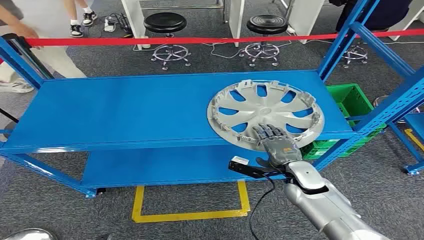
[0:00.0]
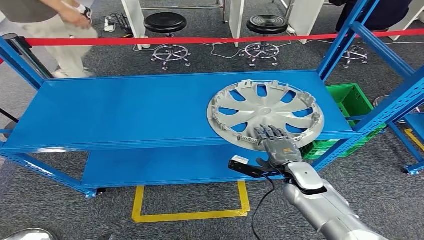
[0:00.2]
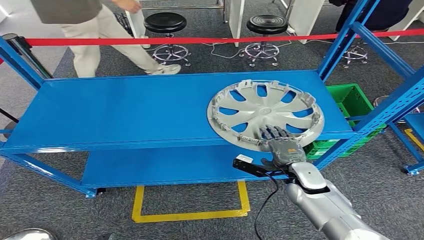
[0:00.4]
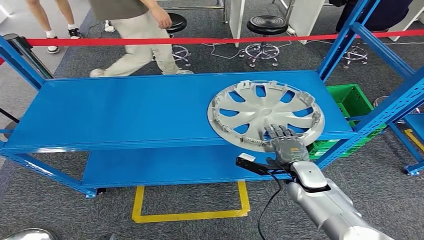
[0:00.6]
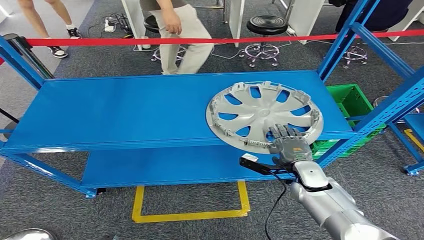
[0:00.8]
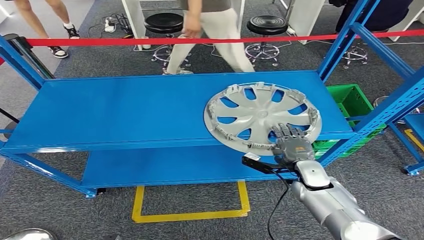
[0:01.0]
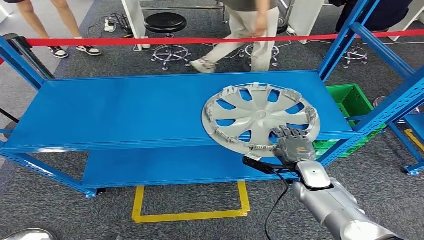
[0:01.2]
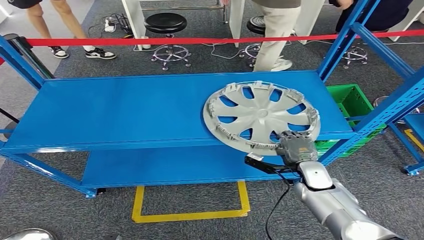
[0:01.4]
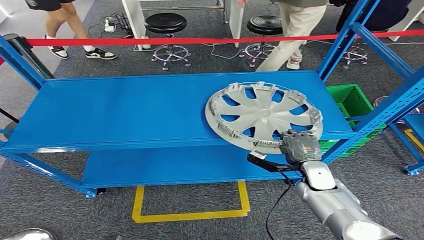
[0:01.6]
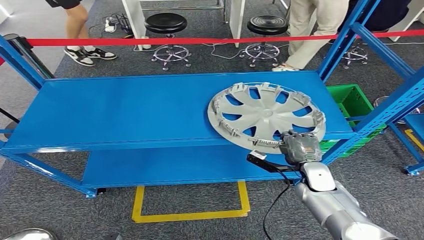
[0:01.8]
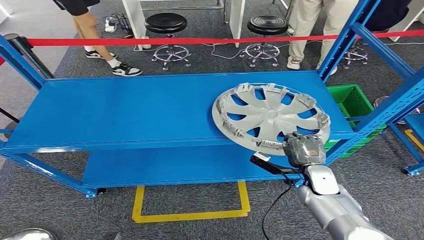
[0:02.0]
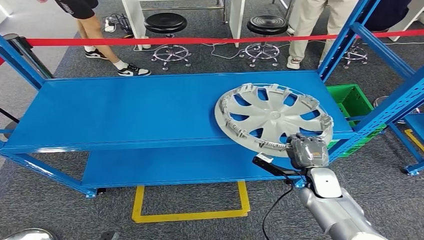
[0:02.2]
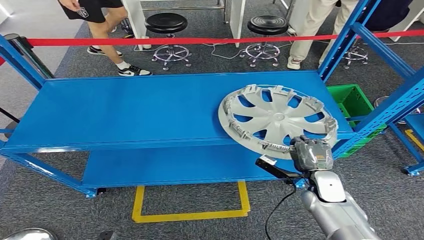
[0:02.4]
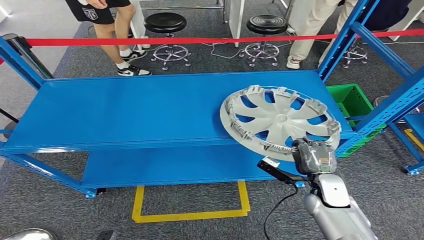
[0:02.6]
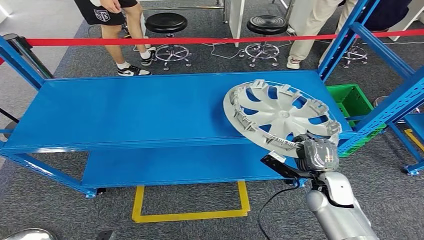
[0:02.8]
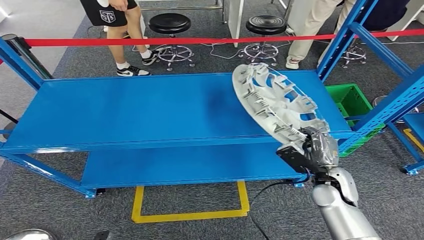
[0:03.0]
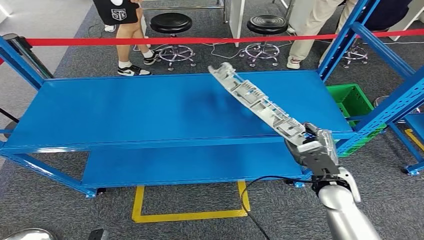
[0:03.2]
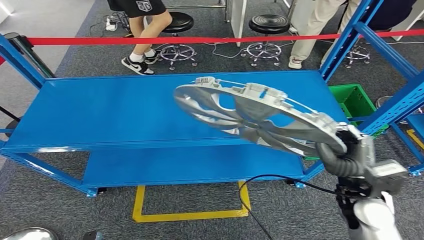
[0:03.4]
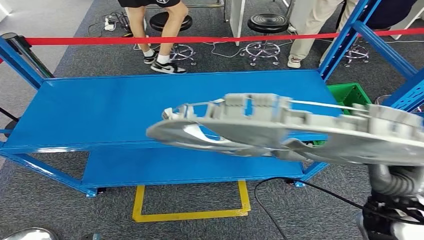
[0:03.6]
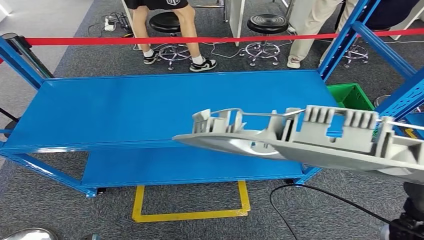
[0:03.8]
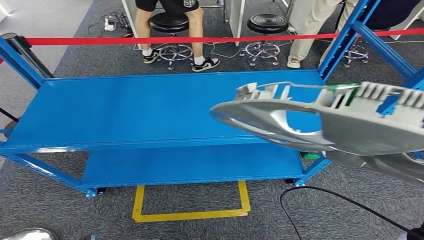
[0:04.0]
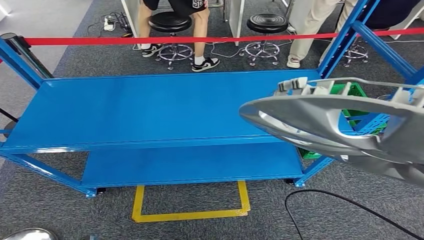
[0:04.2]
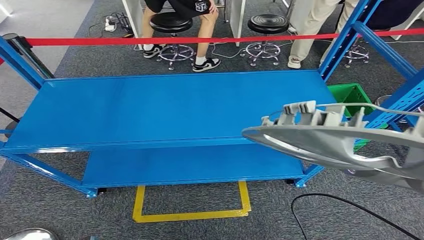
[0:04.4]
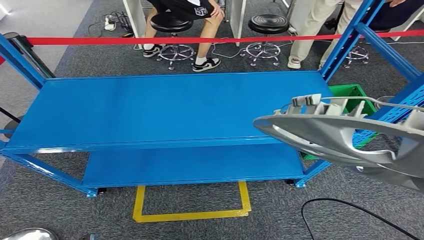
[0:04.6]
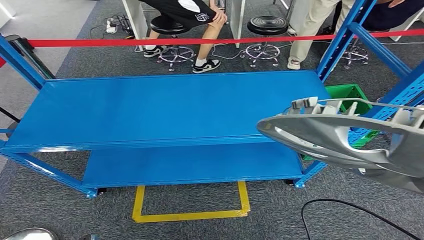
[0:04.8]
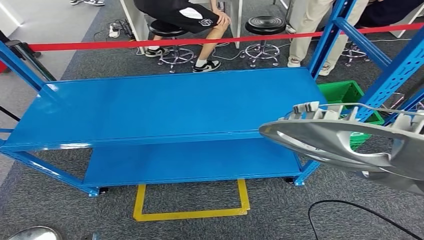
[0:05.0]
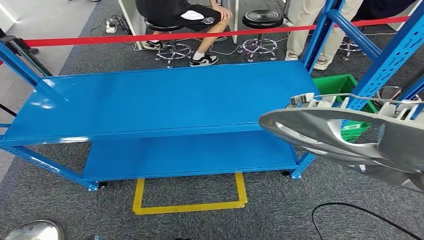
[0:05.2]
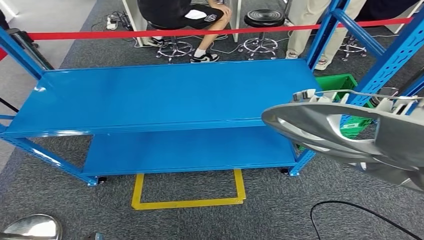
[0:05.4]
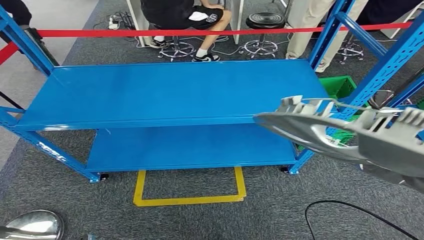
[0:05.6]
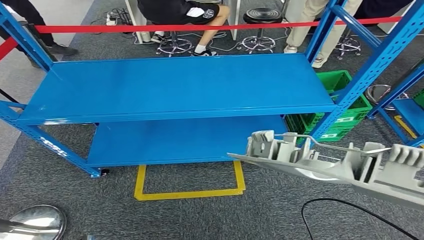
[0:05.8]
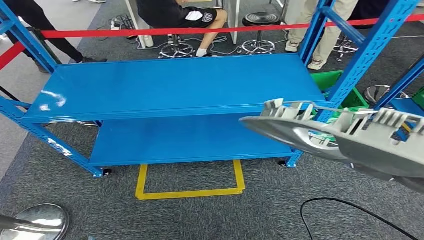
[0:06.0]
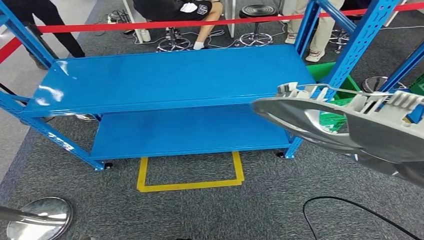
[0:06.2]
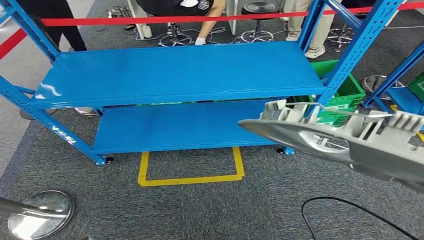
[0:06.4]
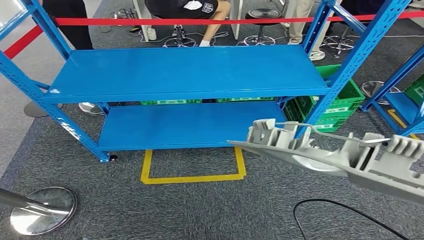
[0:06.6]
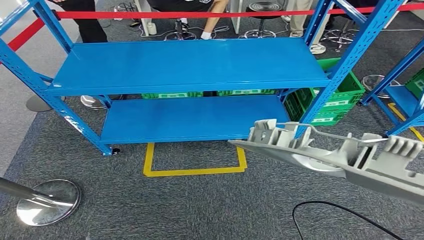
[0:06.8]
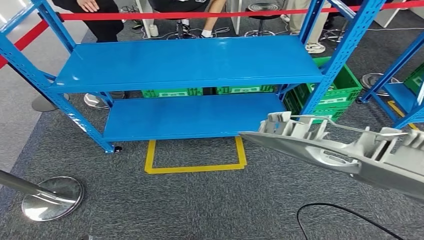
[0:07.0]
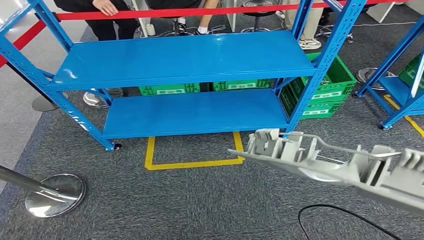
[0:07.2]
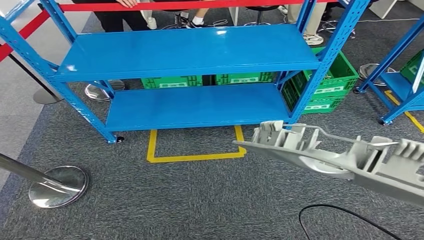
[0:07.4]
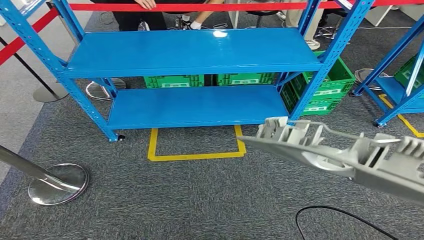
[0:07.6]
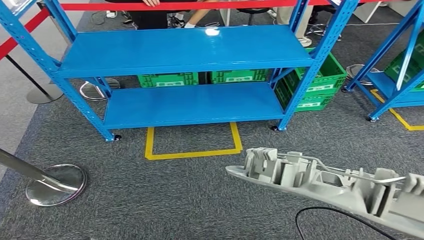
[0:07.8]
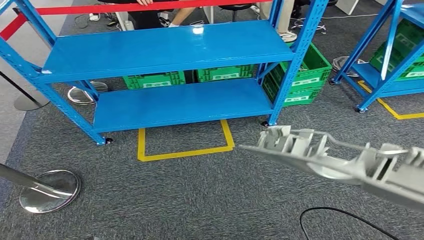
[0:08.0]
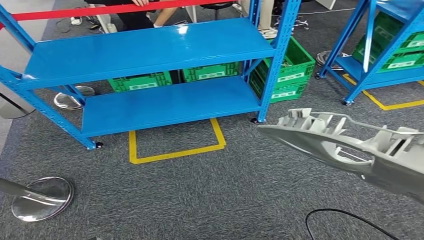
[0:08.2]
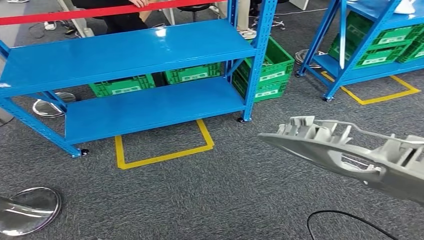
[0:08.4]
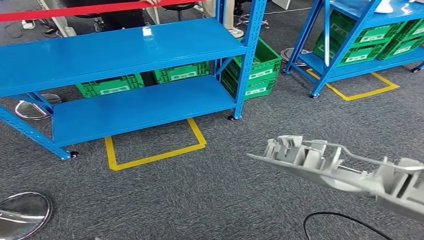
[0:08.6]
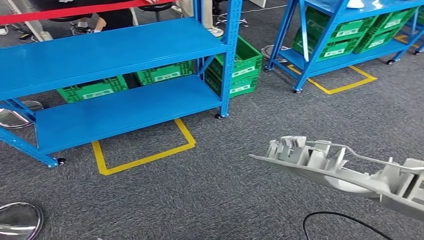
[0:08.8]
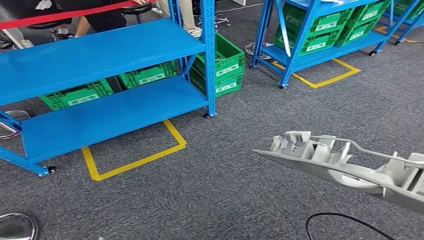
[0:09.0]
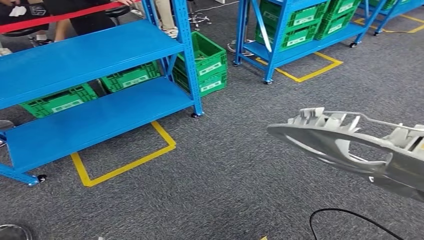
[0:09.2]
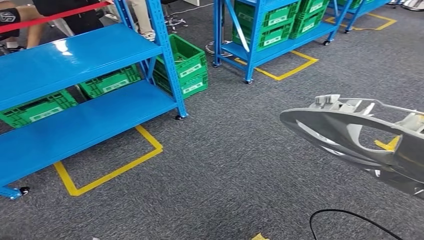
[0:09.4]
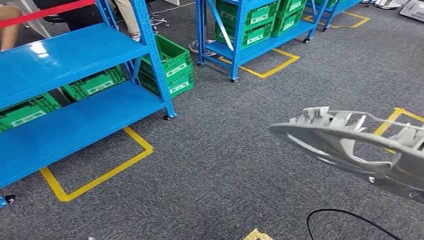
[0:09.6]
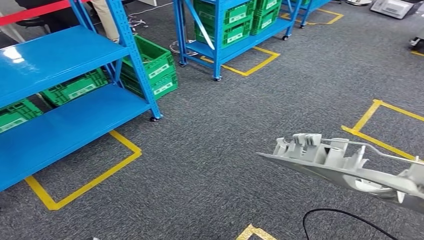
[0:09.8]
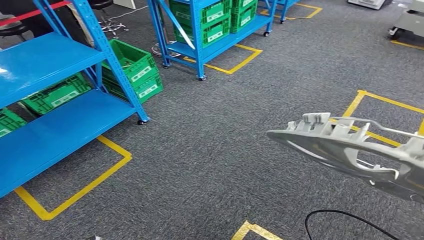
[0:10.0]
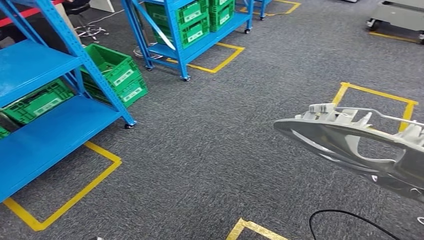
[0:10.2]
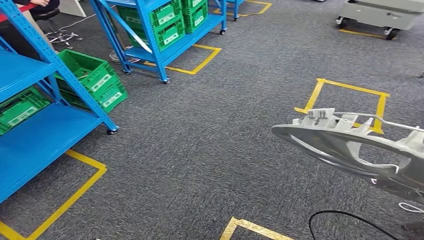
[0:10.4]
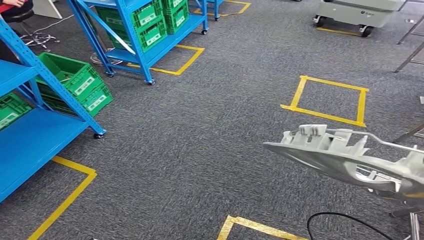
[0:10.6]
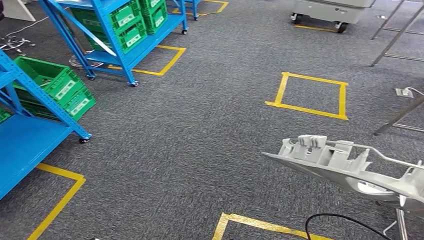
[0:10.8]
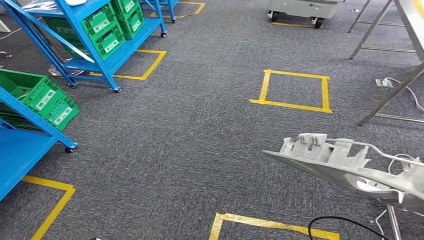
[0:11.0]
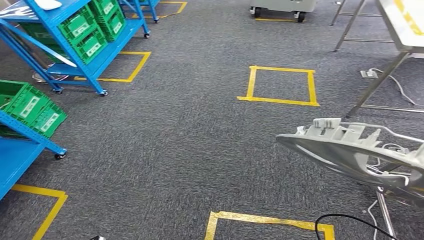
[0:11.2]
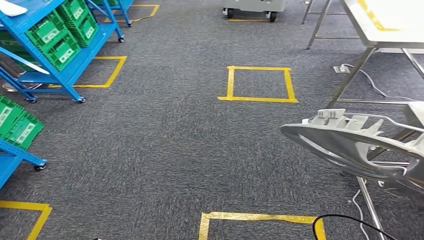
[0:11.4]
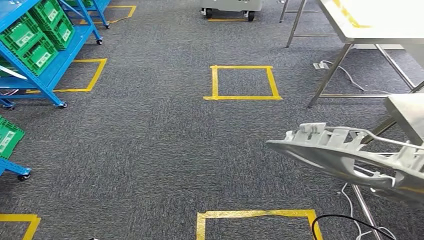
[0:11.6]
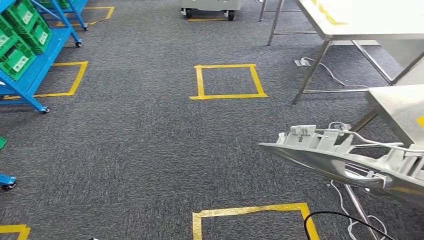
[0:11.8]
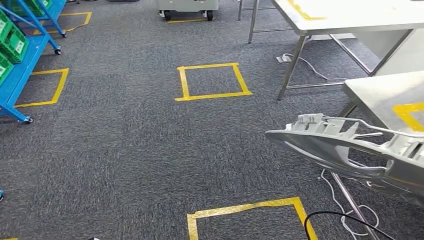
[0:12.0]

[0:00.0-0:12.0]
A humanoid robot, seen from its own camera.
Step, 0:00.0 to 0:04.6: Pick up the small component from the shelf.

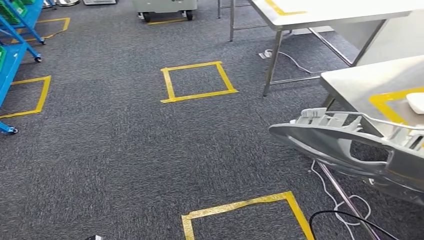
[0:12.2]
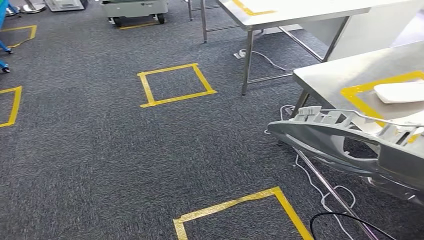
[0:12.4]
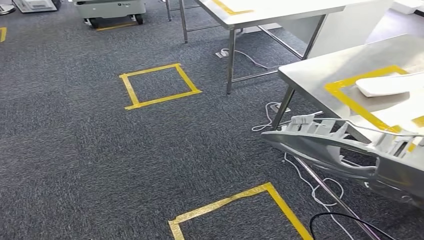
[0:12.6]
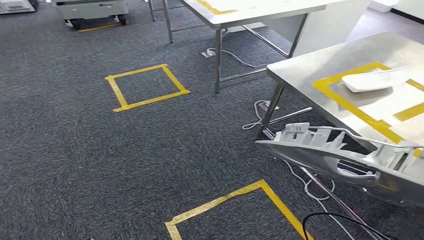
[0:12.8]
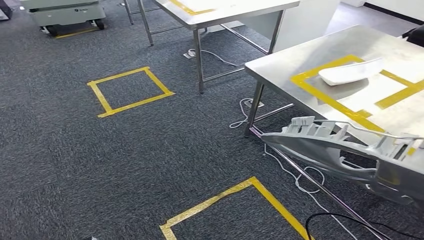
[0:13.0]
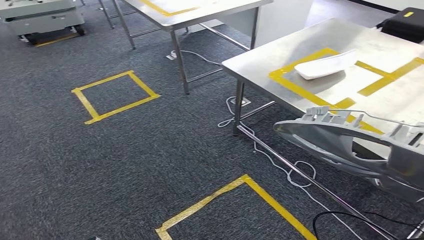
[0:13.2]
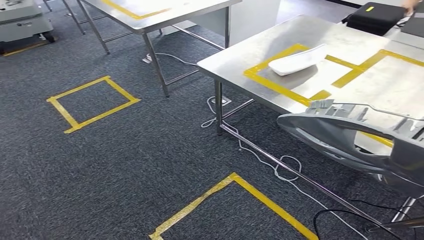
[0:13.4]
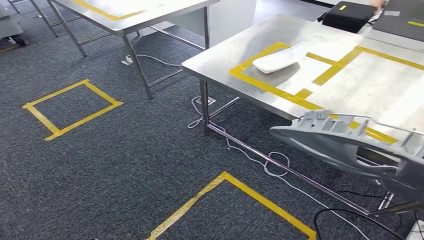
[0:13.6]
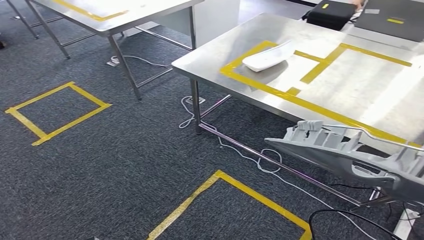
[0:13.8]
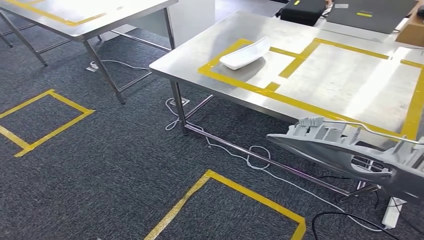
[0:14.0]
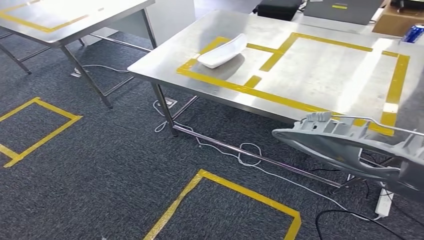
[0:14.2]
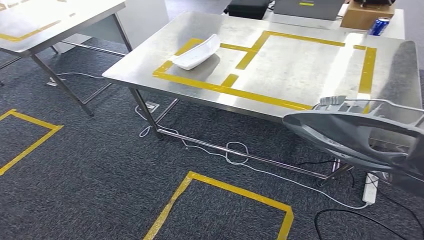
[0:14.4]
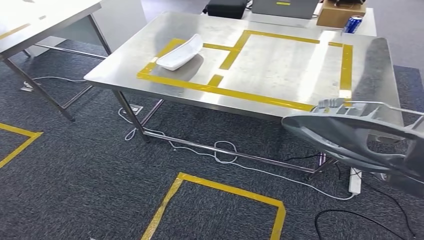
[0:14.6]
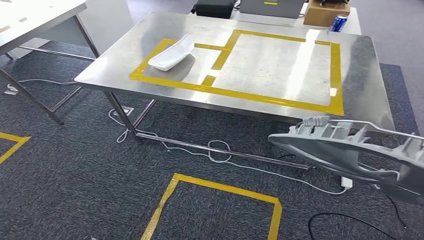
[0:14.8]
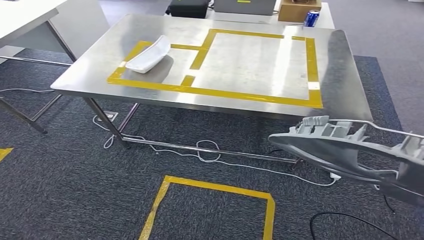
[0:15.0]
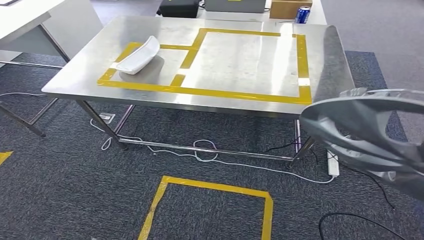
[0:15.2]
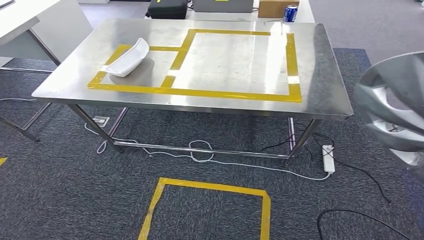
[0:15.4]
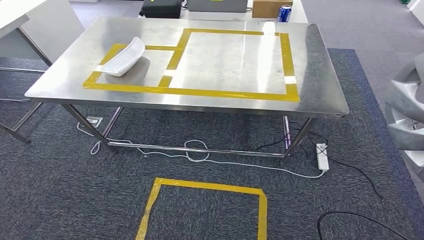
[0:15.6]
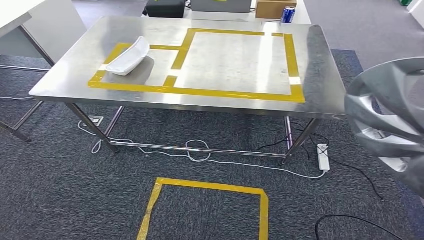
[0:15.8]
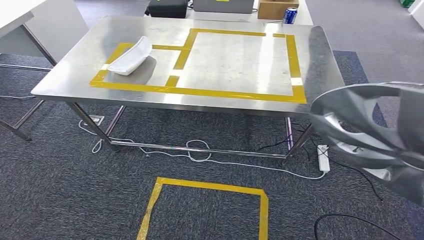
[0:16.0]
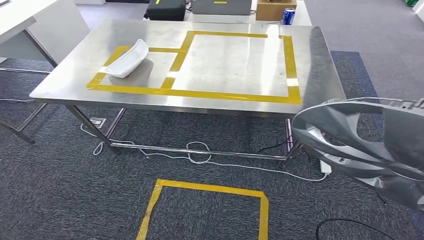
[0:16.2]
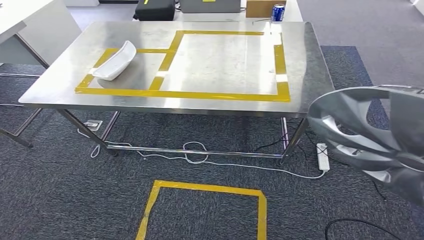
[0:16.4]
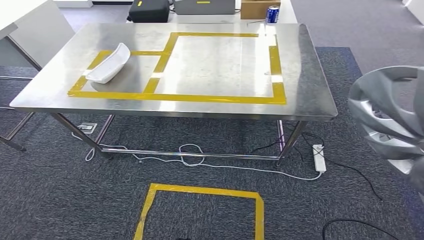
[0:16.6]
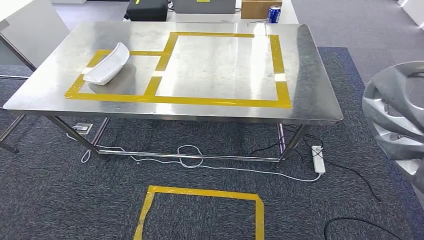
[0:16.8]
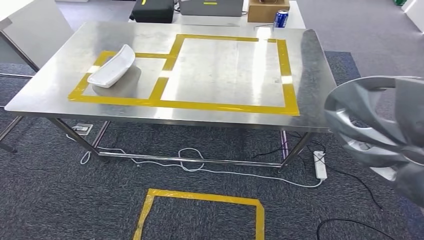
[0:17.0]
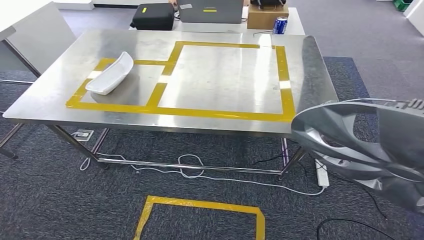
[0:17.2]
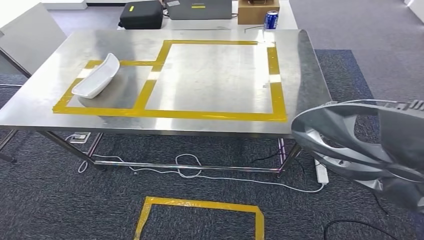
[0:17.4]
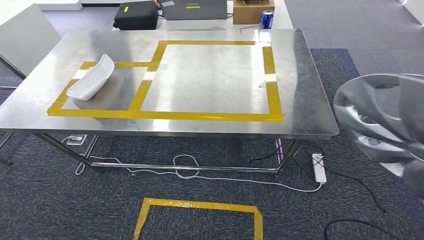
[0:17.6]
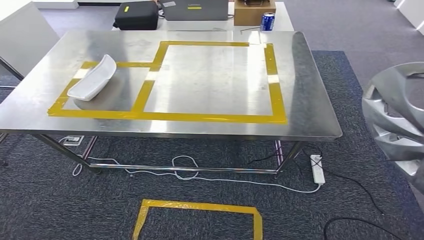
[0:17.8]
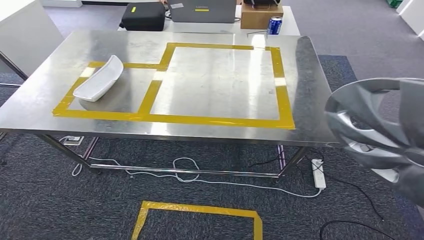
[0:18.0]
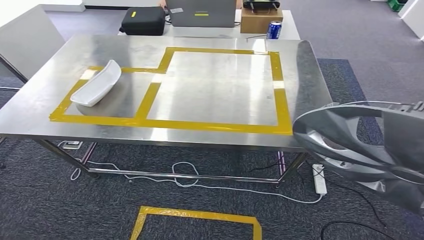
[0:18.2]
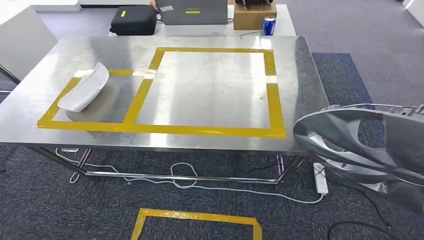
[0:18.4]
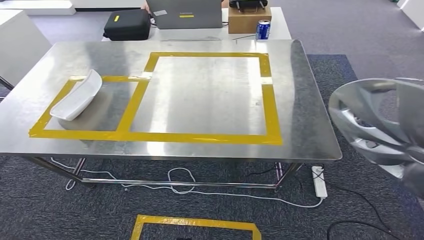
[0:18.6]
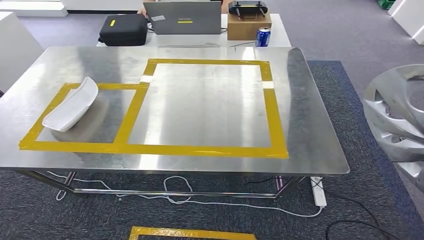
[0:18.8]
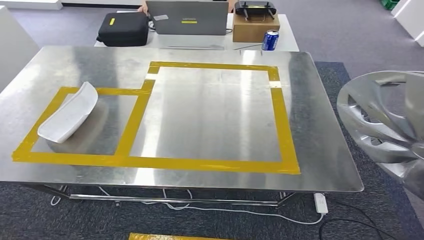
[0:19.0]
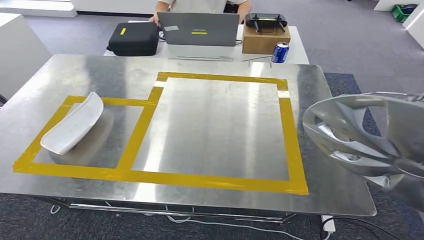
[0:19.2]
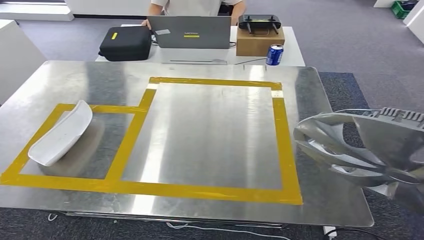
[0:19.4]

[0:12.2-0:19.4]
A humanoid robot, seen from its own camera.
Step, 0:12.2 to 0:18.0: Move the small component to the workbench.
